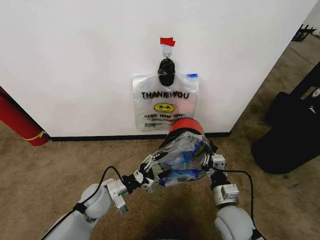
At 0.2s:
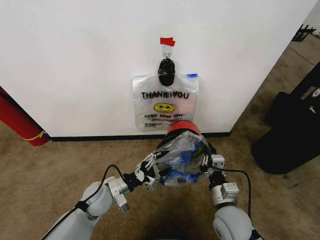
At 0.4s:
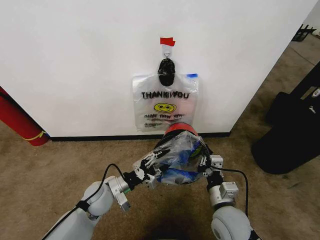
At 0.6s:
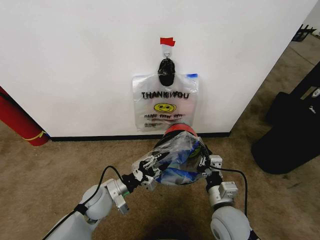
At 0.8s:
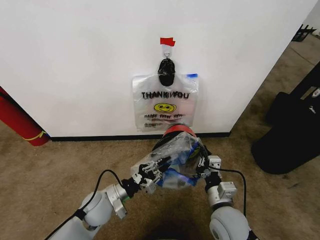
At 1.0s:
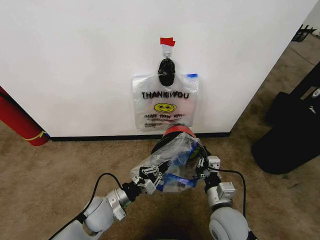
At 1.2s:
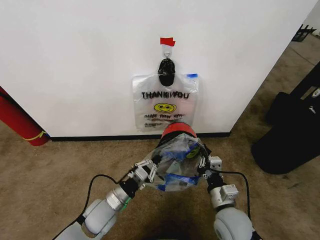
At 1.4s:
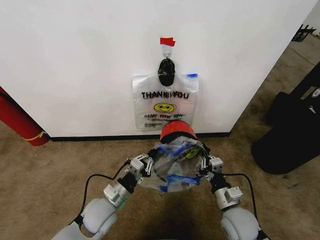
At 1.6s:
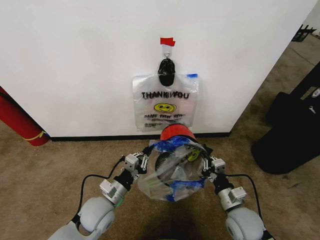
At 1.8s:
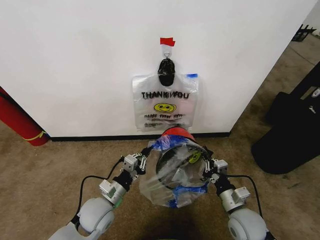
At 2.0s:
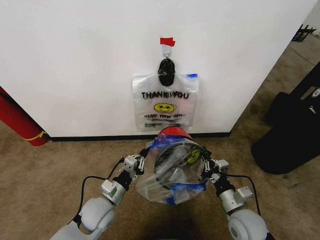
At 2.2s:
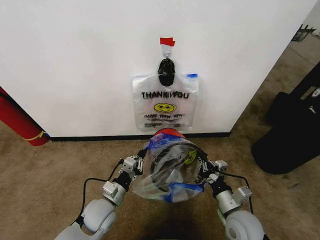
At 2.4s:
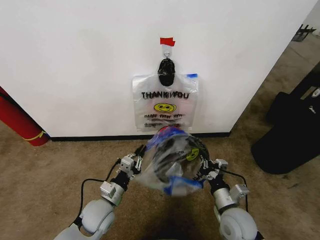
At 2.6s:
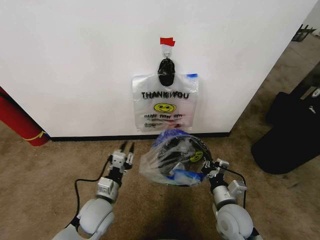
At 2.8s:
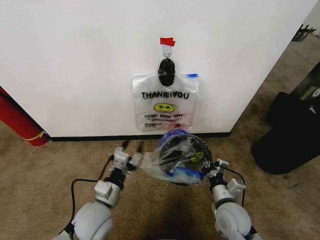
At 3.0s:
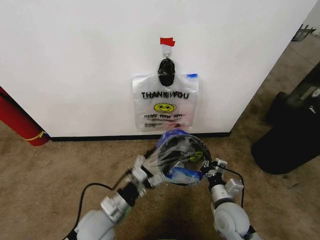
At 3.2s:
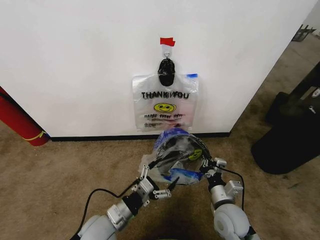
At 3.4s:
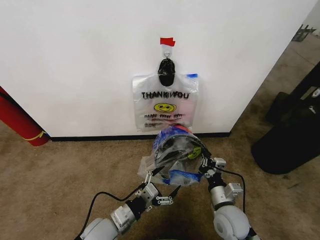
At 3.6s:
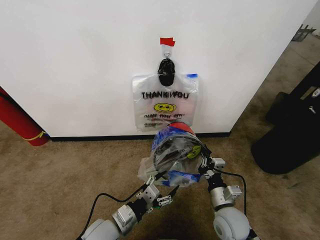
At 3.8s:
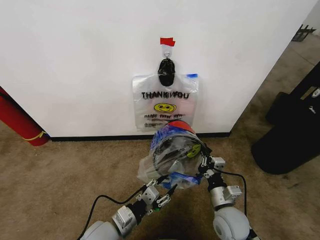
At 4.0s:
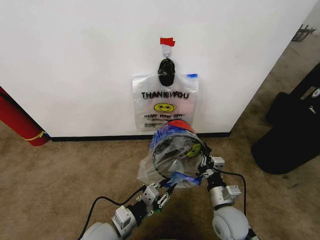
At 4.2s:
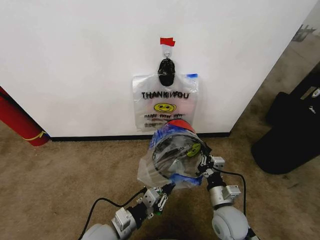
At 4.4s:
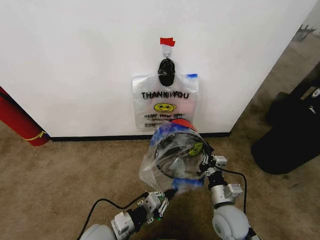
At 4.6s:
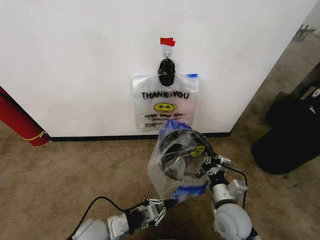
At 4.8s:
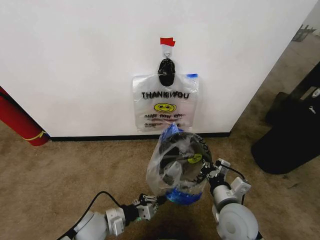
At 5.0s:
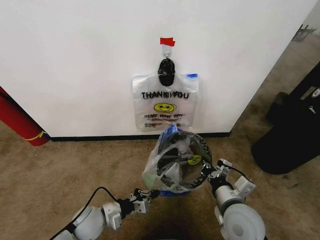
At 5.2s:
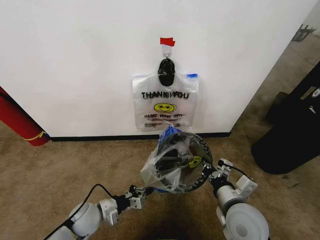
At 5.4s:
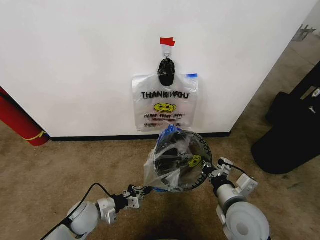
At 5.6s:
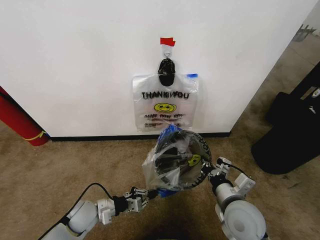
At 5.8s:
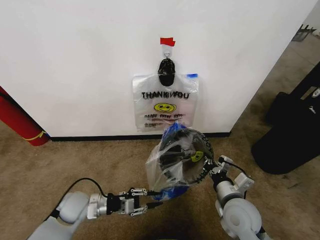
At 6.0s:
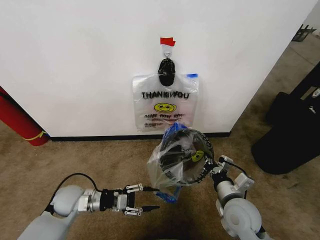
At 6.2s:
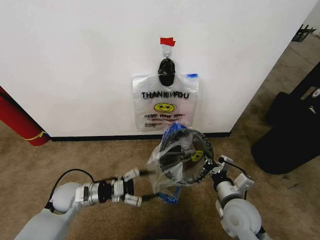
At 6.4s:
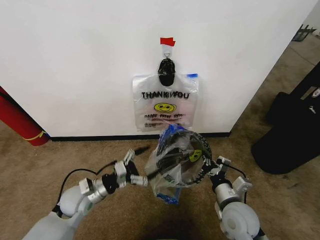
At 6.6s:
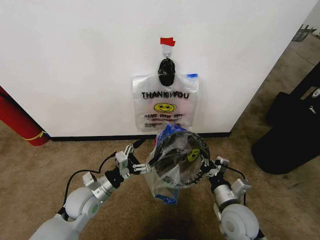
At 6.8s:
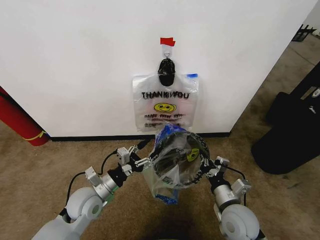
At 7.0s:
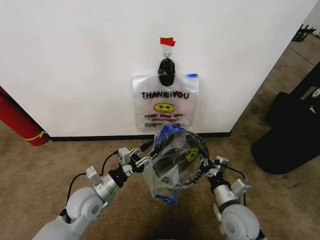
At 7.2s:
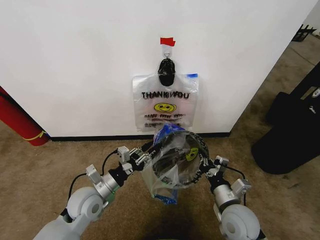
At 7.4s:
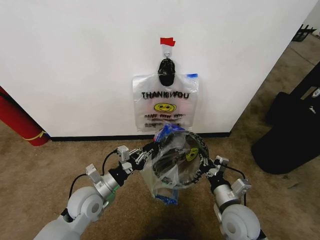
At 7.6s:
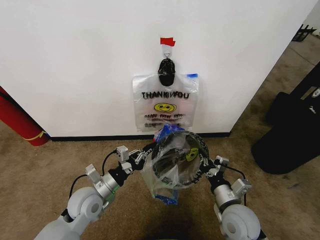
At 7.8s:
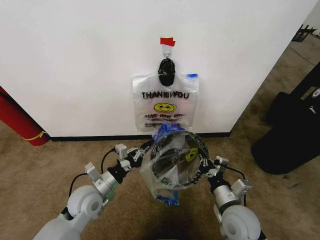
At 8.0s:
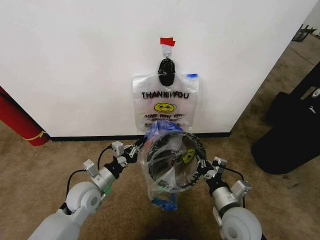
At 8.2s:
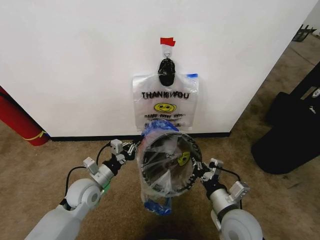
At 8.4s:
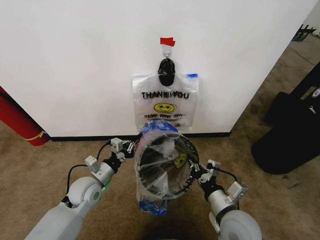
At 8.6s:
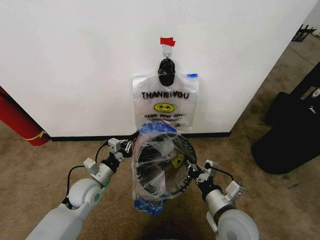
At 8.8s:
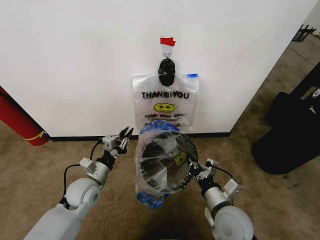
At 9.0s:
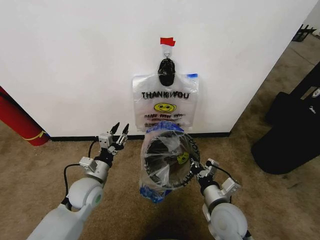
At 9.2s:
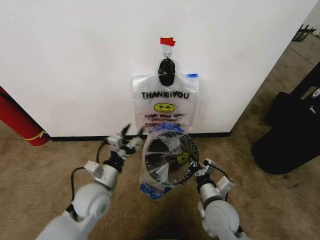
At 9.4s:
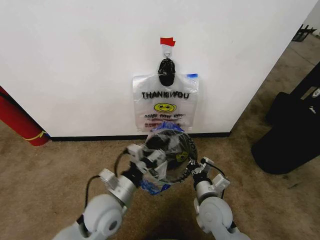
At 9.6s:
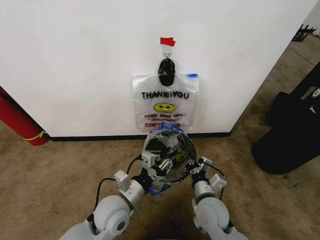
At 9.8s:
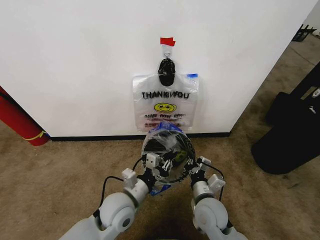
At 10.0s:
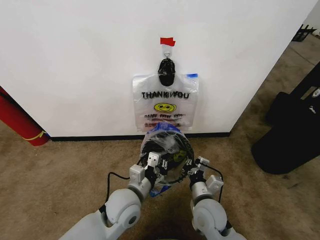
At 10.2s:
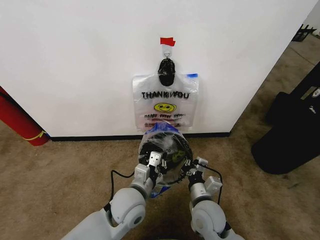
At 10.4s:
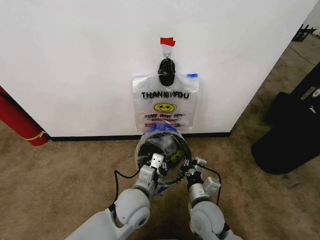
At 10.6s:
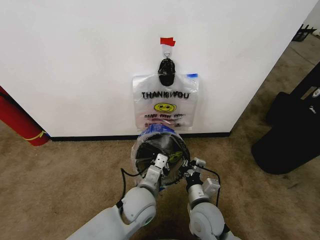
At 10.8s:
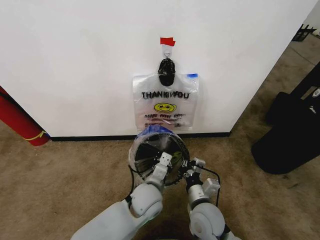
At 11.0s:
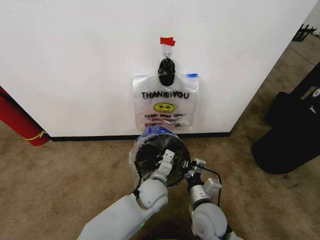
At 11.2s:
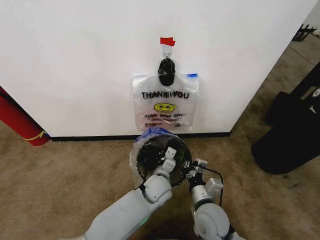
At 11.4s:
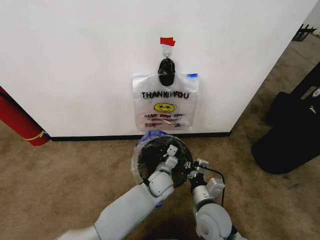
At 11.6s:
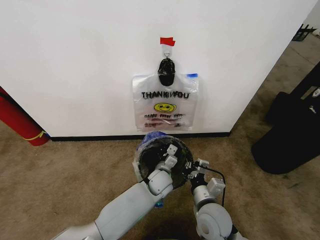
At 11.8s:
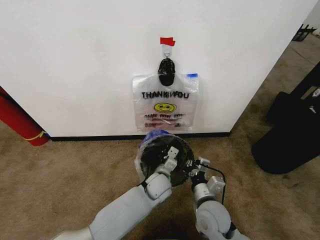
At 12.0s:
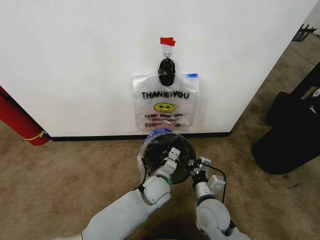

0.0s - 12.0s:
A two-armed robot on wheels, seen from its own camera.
Task of the whole recording: Pick up the garbage bag from the wall and place it over the trash bin.
0.0s - 1.6s: The left gripper changes place by roughly 5 cm, and closes up.
1.6s - 3.0s: The left gripper opens.
3.0s - 4.4s: The left gripper closes up.
4.4s - 6.0s: The left gripper goes about 15 cm to the left and forward, and opens up.
6.0s - 7.6s: The left gripper moves to the right, approximately 5 cm, and closes its fingers.
7.6s - 9.0s: The left gripper opens up.
9.0s - 10.4s: The right gripper heads to the left, covering about 5 cm. Meanwhile the left gripper goes approximately 15 cm to the right, and closes its fingers.
10.4s - 12.0s: The left gripper moves forward, downward and to the right, some 15 cm.

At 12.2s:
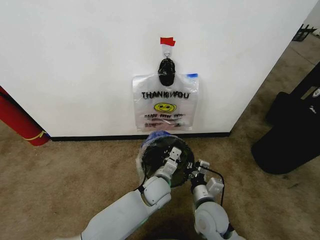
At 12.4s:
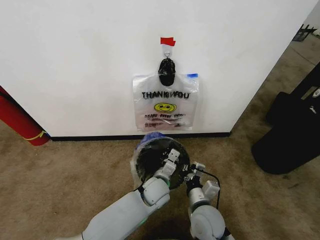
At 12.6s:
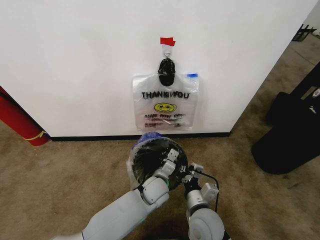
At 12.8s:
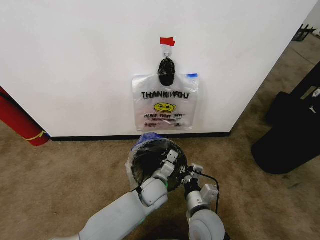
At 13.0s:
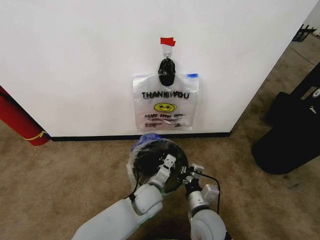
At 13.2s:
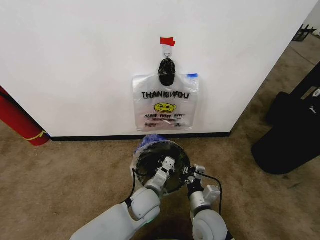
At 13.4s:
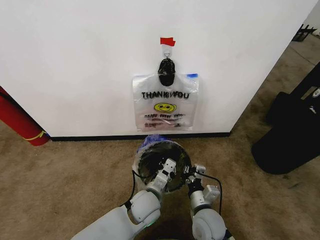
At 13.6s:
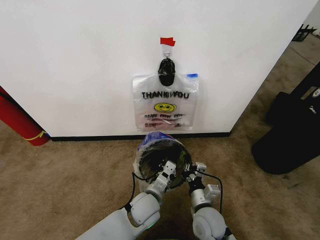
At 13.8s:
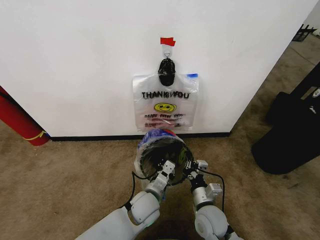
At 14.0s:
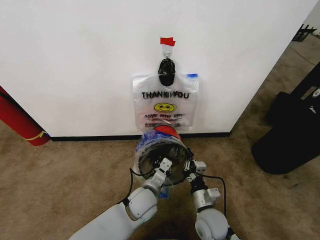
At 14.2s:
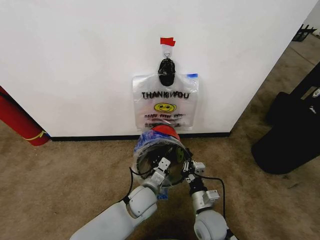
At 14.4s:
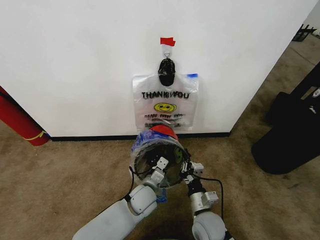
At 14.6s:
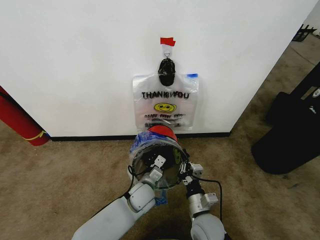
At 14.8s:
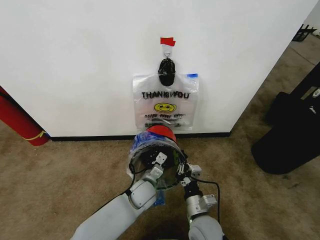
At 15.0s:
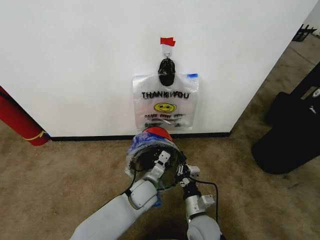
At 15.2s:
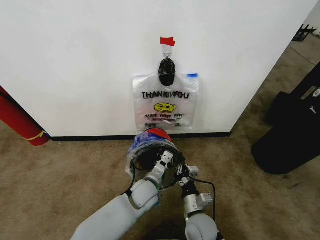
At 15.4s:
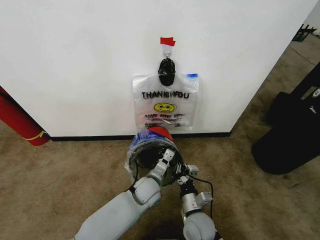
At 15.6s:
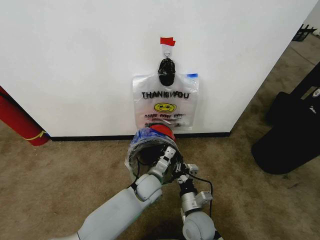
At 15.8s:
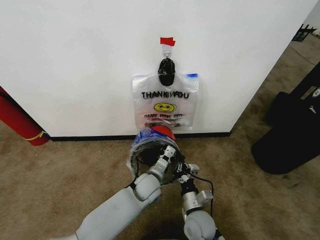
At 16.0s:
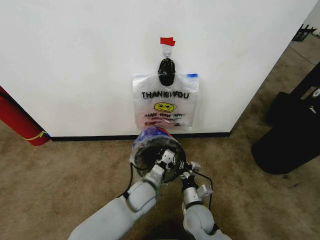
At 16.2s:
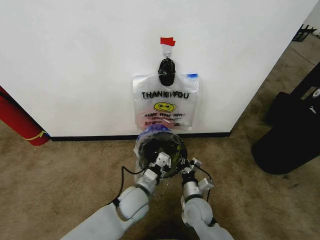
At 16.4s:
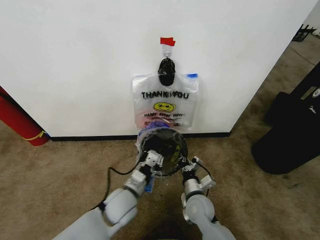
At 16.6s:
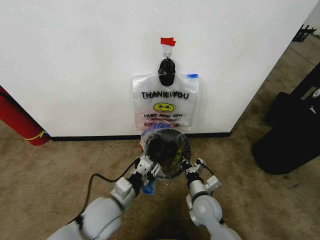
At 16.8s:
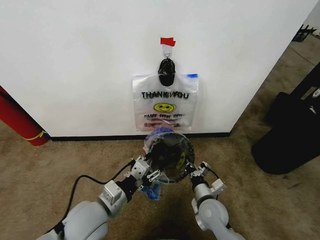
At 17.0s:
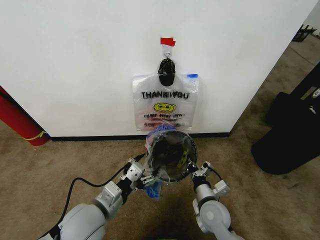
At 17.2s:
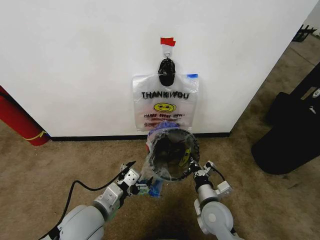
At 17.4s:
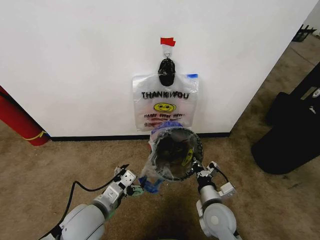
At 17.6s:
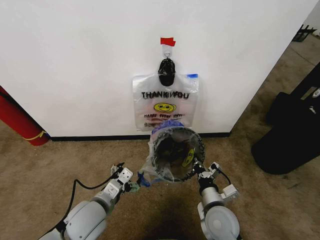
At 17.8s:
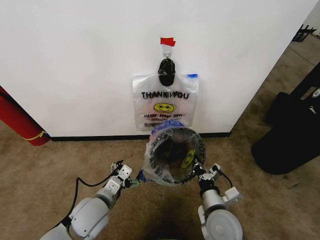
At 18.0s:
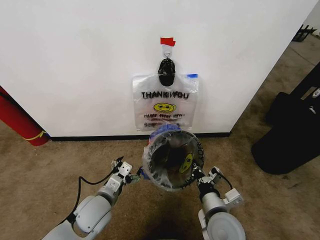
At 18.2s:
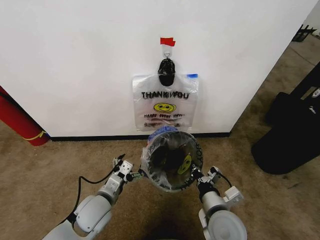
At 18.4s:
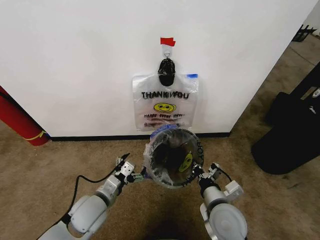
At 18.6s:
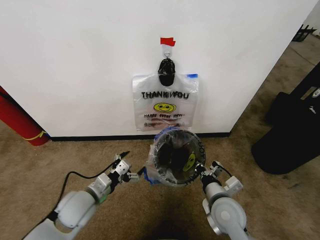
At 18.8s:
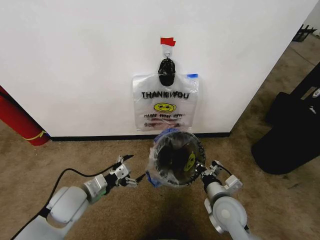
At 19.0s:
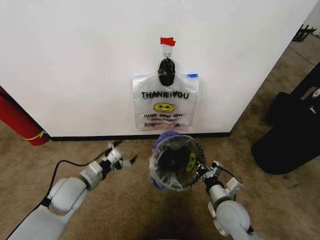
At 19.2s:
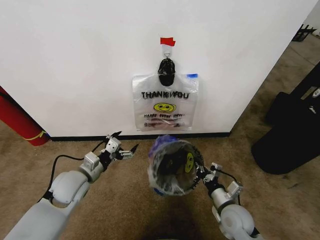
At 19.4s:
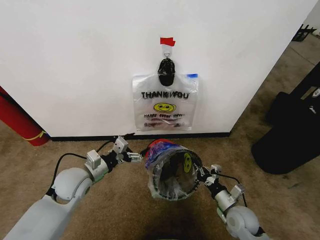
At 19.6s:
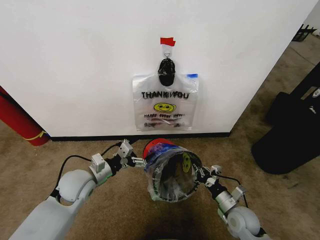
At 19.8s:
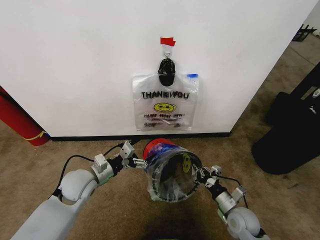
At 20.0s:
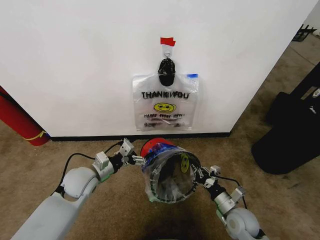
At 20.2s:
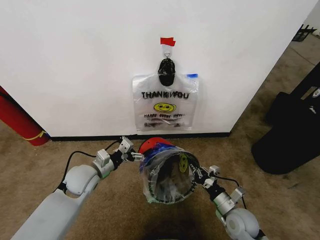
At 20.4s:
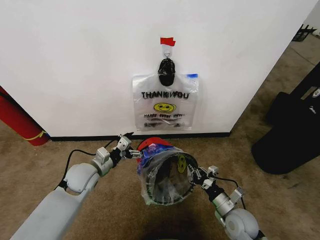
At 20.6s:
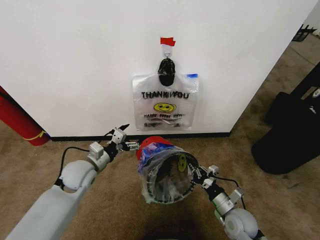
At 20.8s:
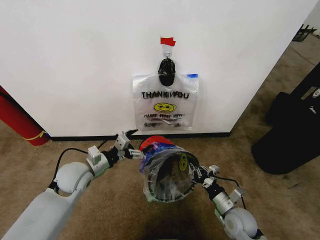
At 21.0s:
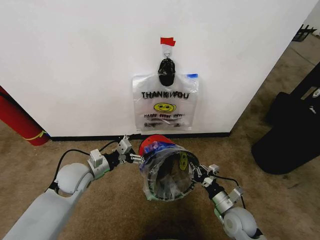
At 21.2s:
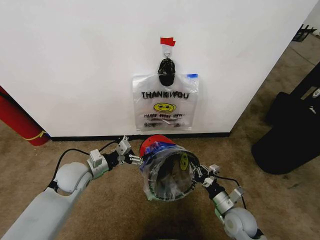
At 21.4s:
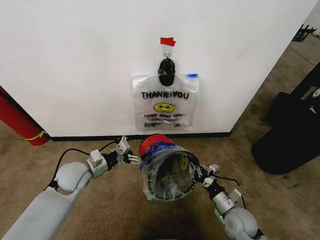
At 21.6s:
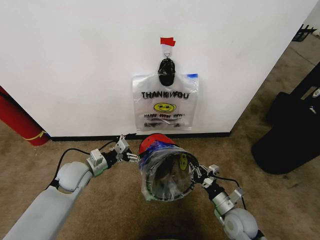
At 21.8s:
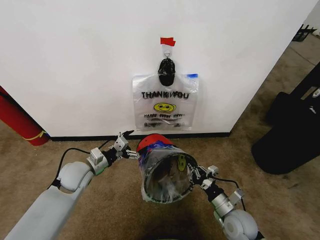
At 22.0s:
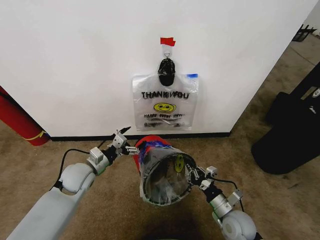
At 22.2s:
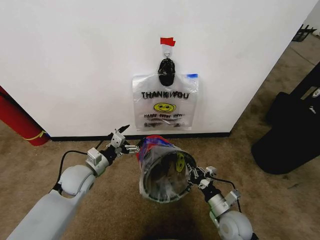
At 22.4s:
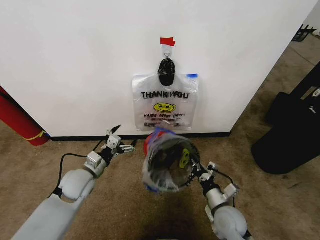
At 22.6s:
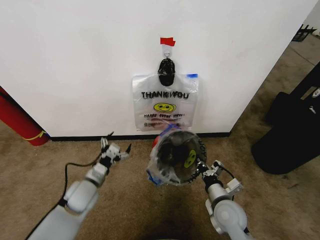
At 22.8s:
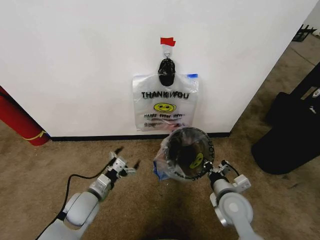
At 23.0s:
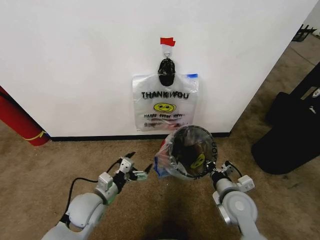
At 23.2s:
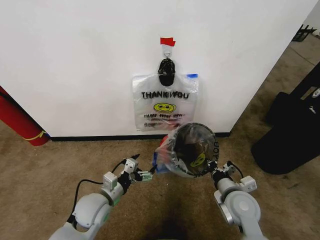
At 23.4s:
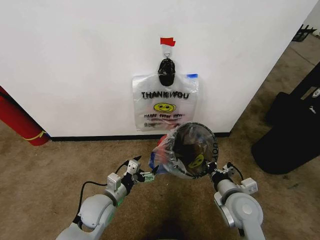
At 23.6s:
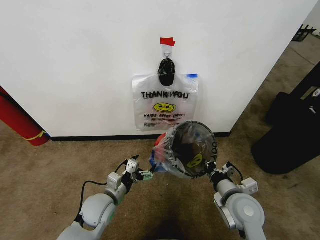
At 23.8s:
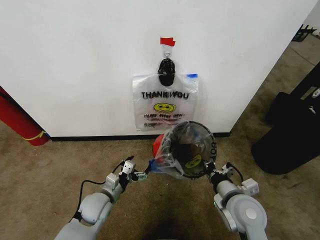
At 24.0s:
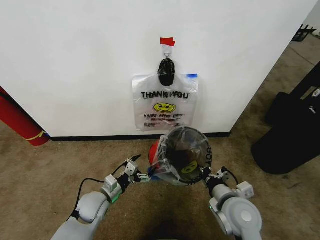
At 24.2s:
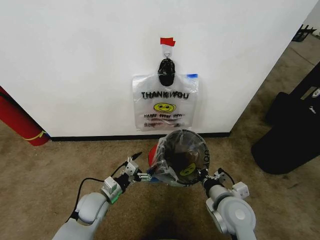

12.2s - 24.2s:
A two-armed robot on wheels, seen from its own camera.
Task of the whole recording: Pick up the garbage bag from the wall and place it over the trash bin.
12.2s - 13.8s: The left gripper heads backward, covering about 5 cm.
13.8s - 15.2s: The left gripper heads forward, covering roughly 5 cm.
15.2s - 16.6s: The right gripper moves forward, about 5 cm. The left gripper is displaced to the left, backward and upward by approximately 15 cm, and opens.
16.6s - 18.2s: The right gripper is displaced upward and backward by approximately 10 cm, while the left gripper travels to the left by approximately 5 cm, and opens up.
18.2s - 19.8s: The right gripper travels downward and to the right by roughly 15 cm. The left gripper is displaced forward and to the left by approximately 10 cm.
19.8s - 21.2s: The grippers stay close to where they were, moving slightly.
21.2s - 22.6s: The right gripper heads upward and to the left, covering about 5 cm. The left gripper goes approximately 5 cm downward.
22.6s - 24.2s: The right gripper is displaced upward by about 5 cm, while the left gripper moves roughly 5 cm.
